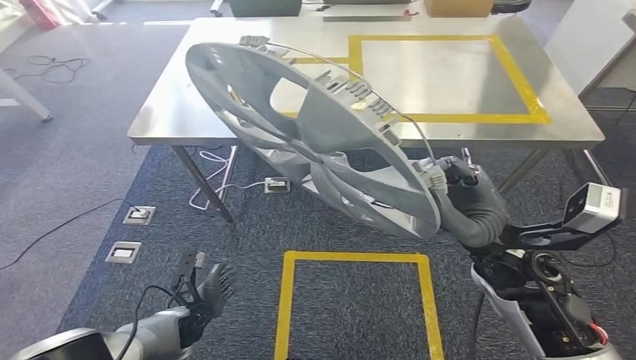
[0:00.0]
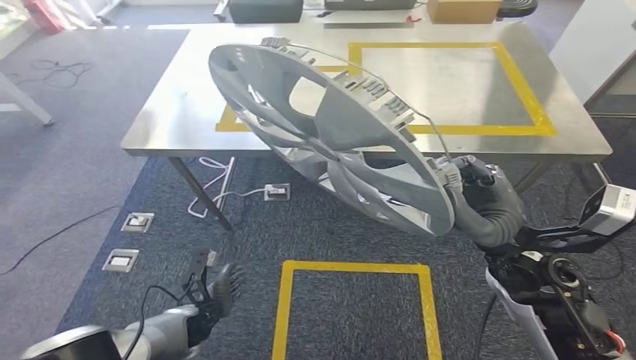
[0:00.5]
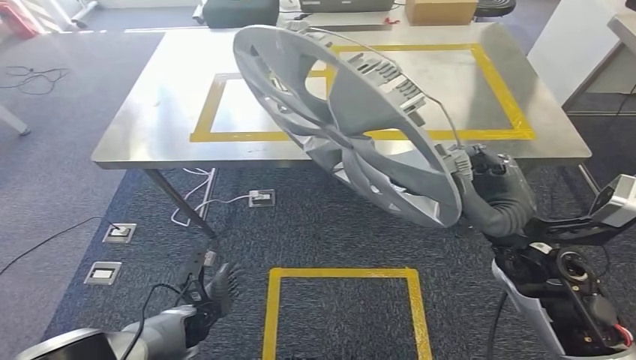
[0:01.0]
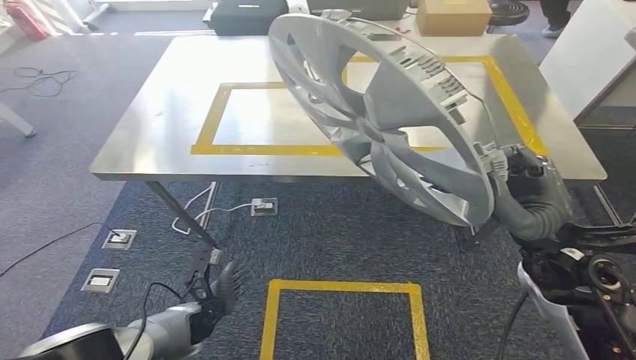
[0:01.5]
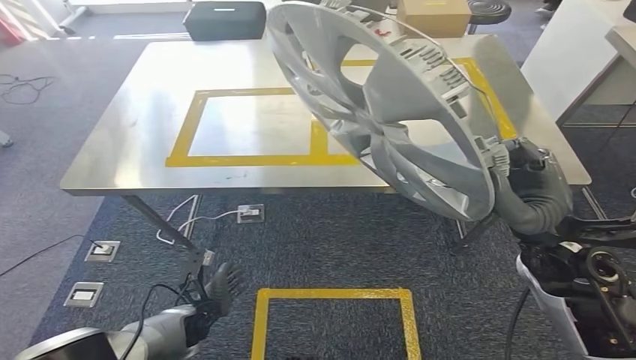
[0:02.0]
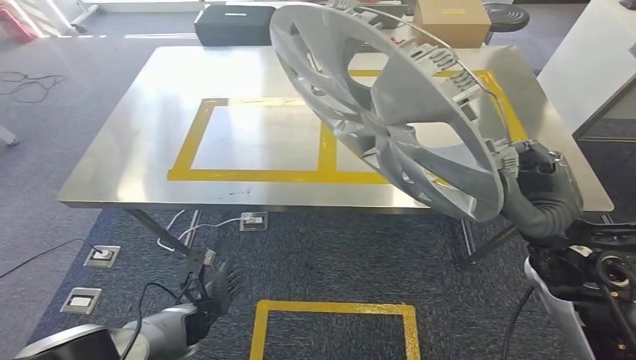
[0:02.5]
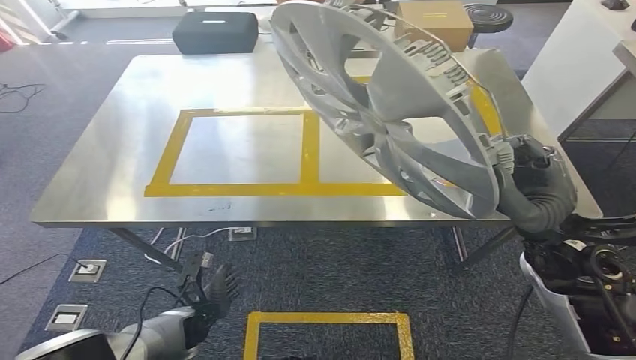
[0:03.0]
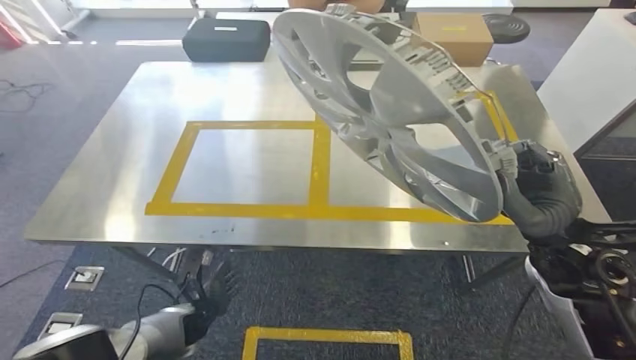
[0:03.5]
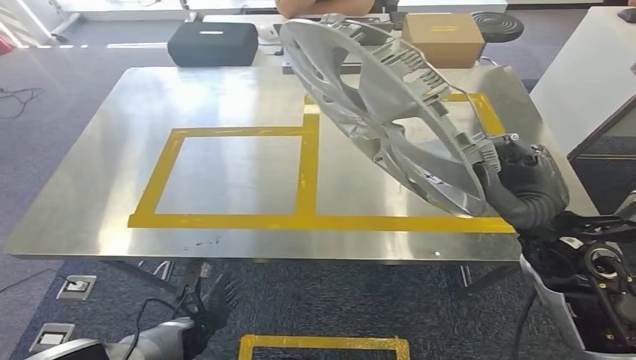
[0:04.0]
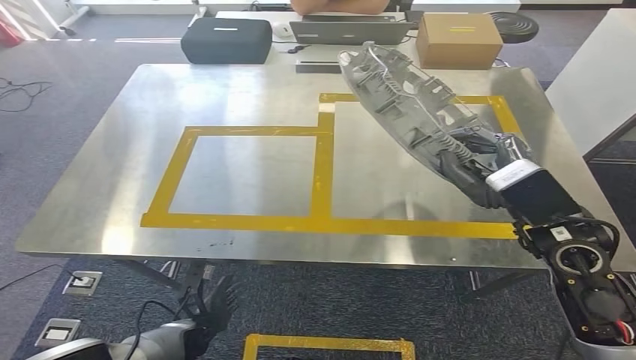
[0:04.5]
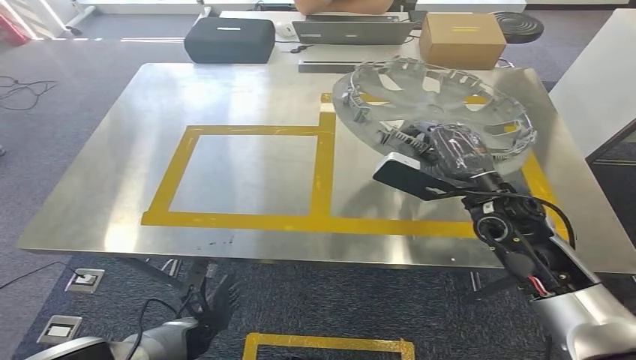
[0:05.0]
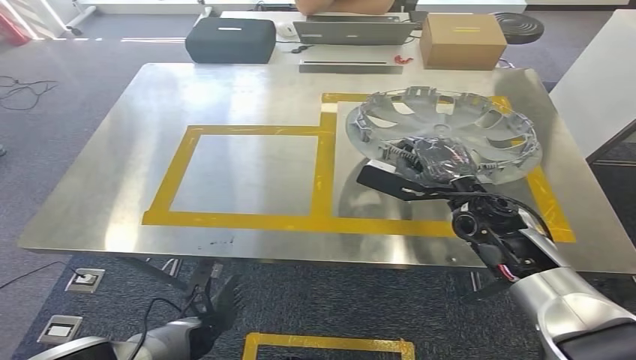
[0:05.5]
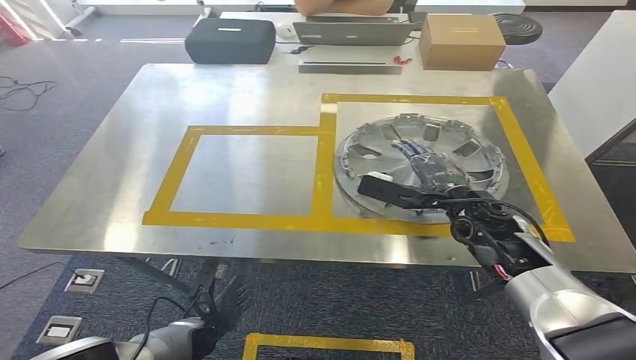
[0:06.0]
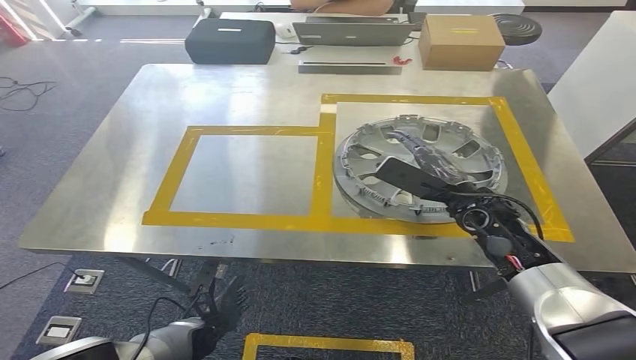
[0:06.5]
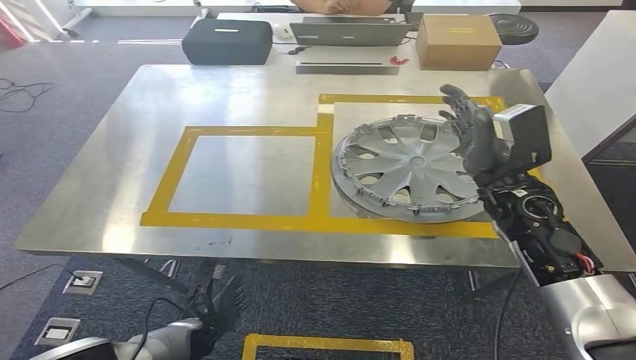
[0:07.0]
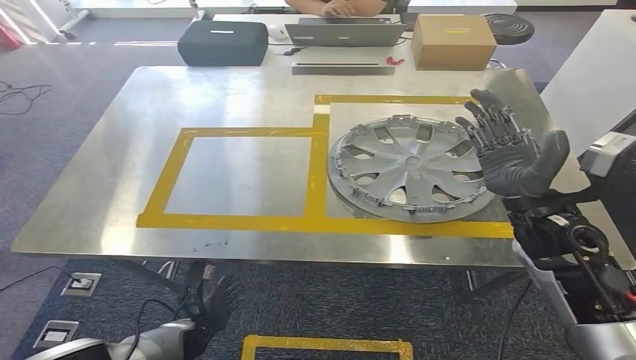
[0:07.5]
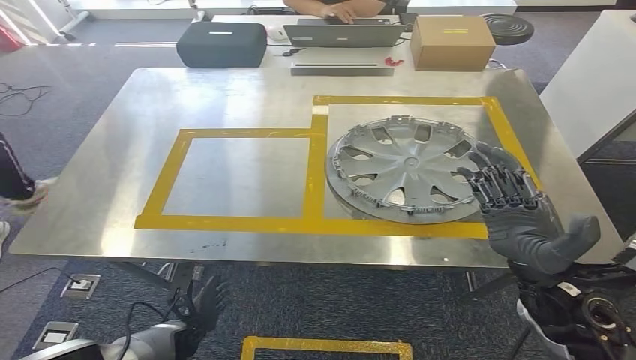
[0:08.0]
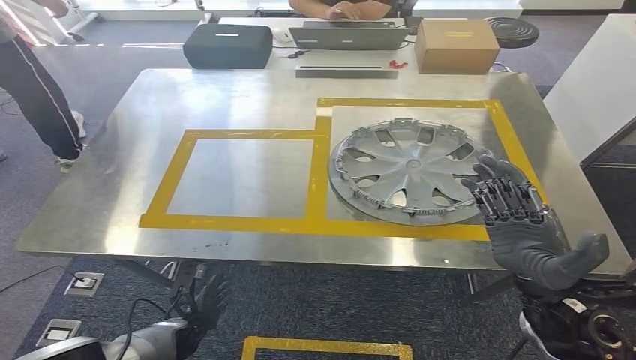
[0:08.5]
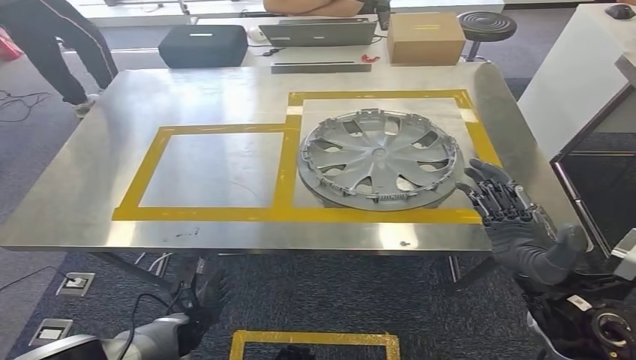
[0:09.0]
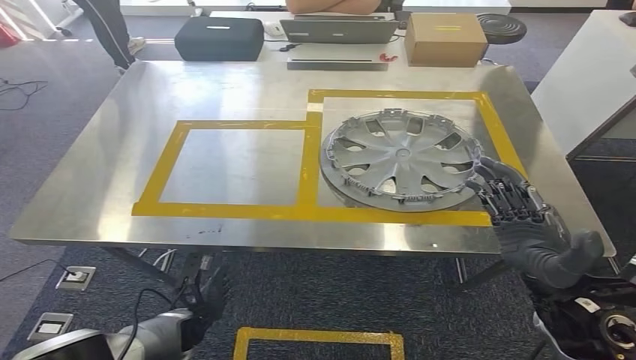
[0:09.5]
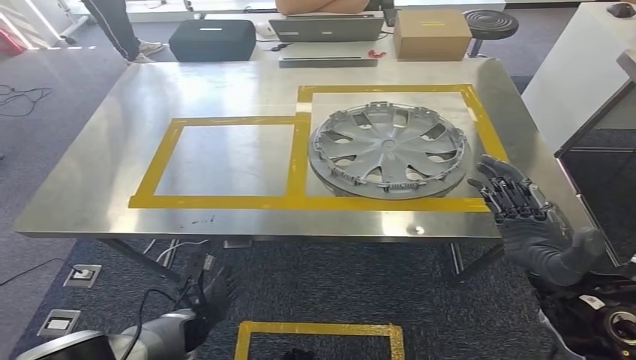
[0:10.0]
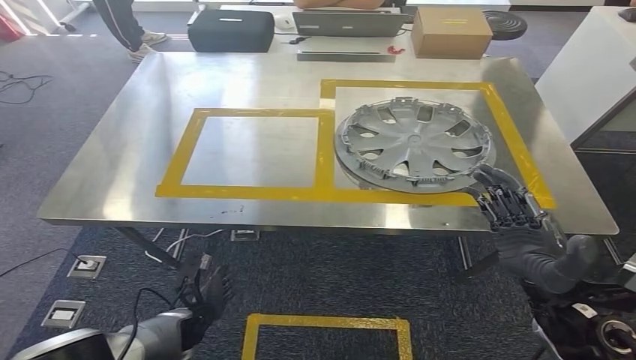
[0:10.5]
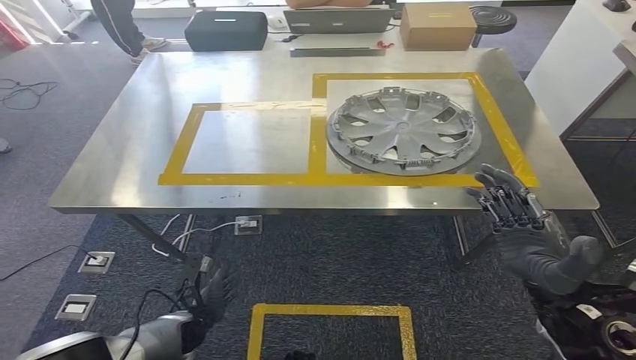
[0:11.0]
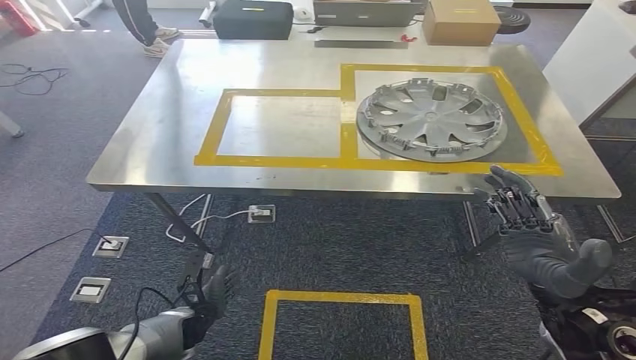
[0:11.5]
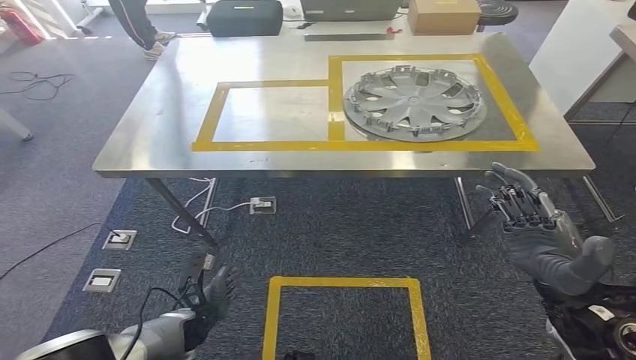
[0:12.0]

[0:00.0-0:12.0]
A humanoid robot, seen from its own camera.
Step, 0:00.0 to 0:03.0: Bring the small component to the front of the workbench.
Step, 0:03.5 to 0:11.0: Insert the small component into the corresponding slot on the workbench.

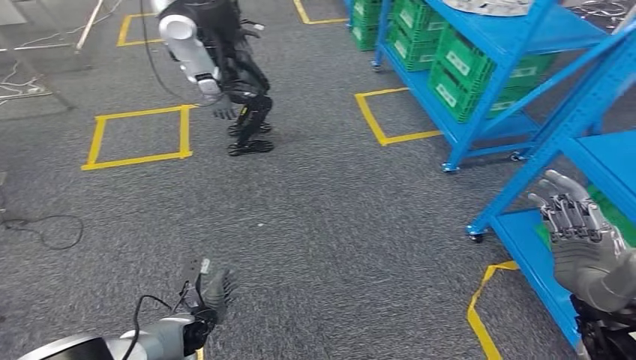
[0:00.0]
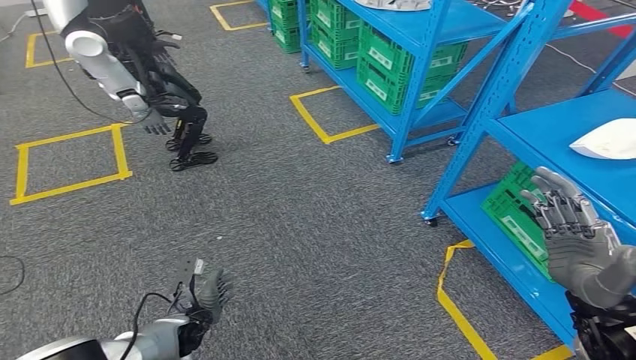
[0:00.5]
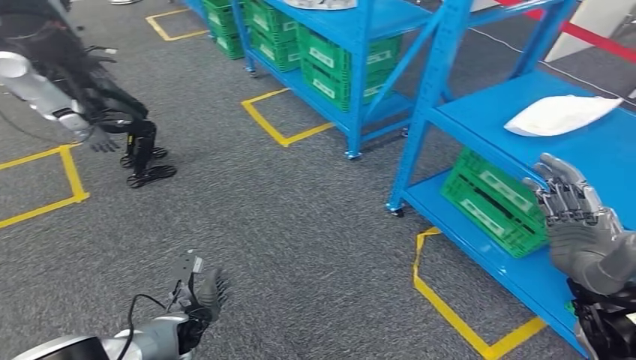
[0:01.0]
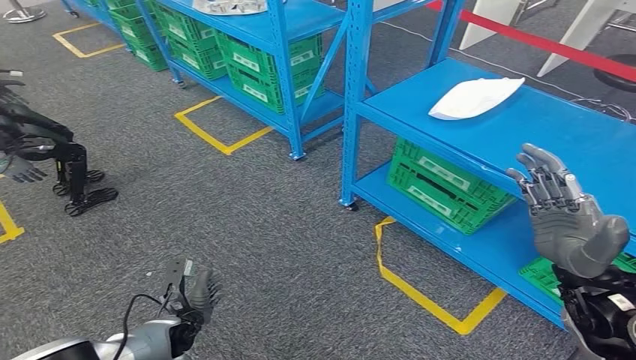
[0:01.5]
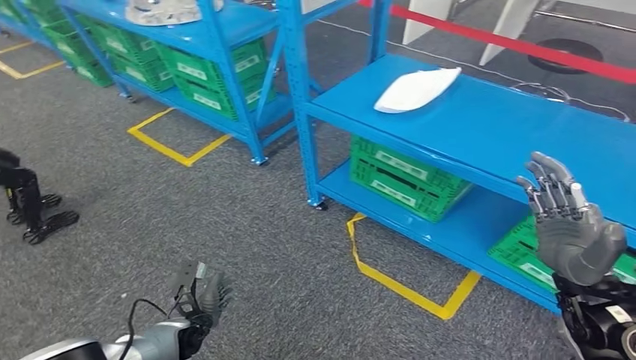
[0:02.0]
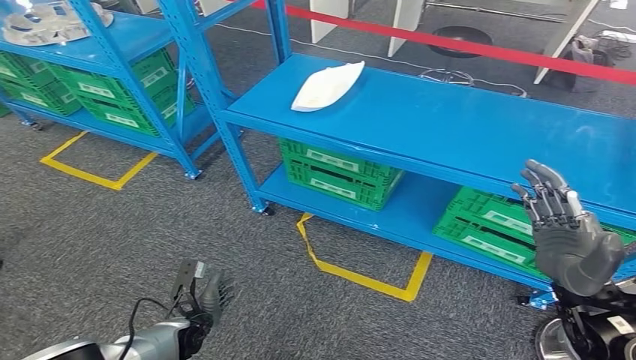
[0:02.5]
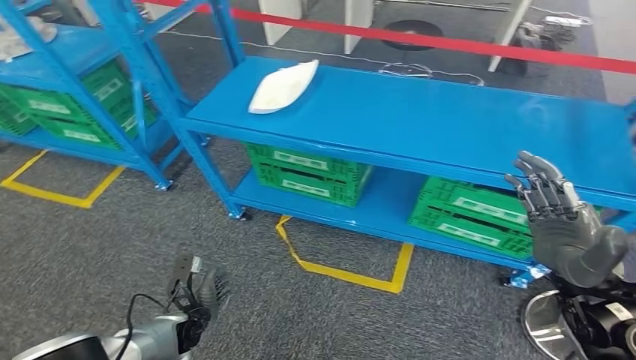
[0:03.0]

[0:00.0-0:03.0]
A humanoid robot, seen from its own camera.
Step, 0:00.0 to 0:03.0: Move to the initial position of the workbench.
